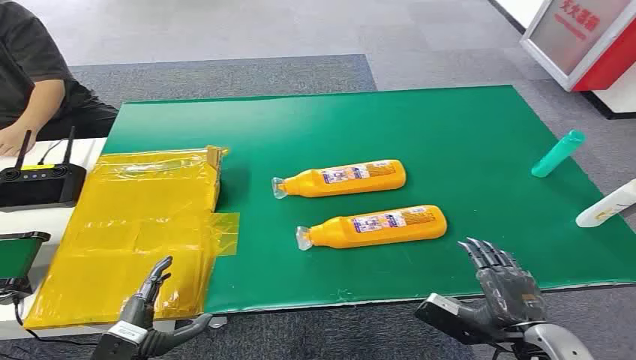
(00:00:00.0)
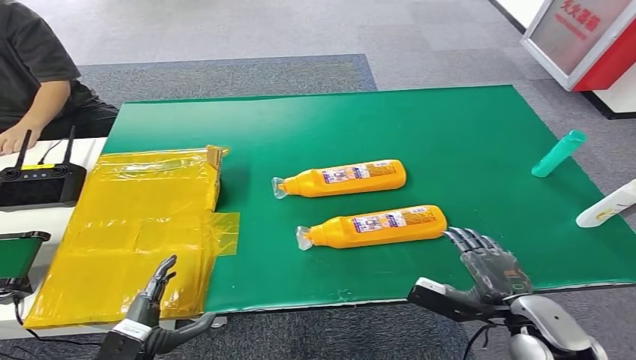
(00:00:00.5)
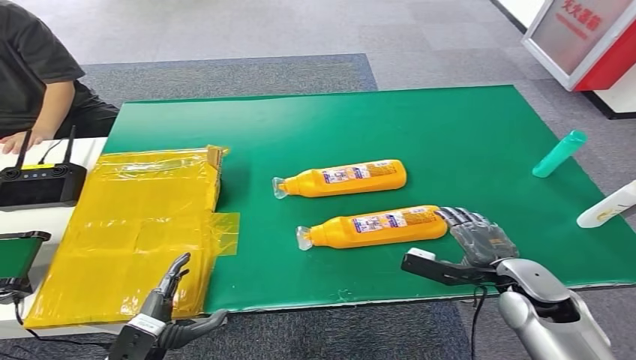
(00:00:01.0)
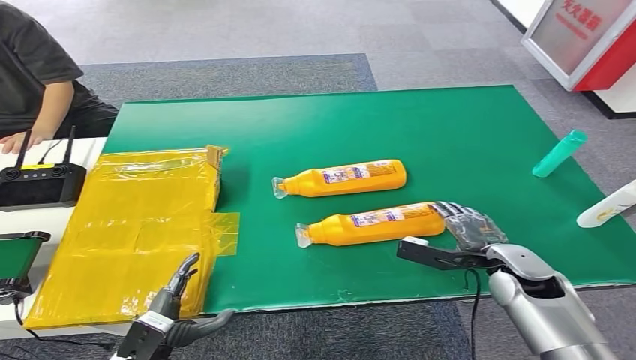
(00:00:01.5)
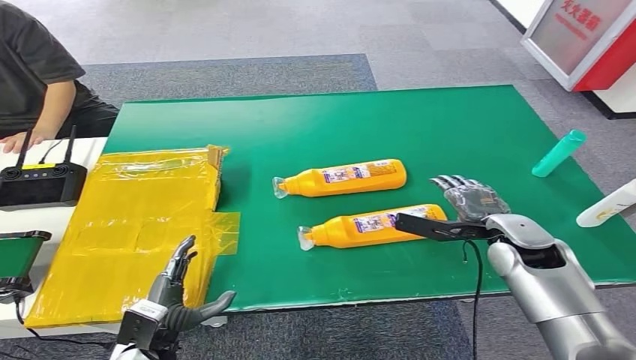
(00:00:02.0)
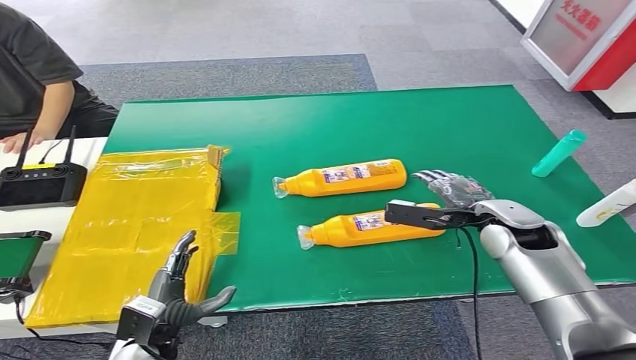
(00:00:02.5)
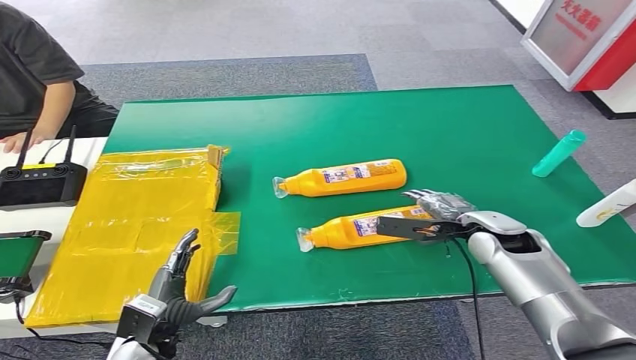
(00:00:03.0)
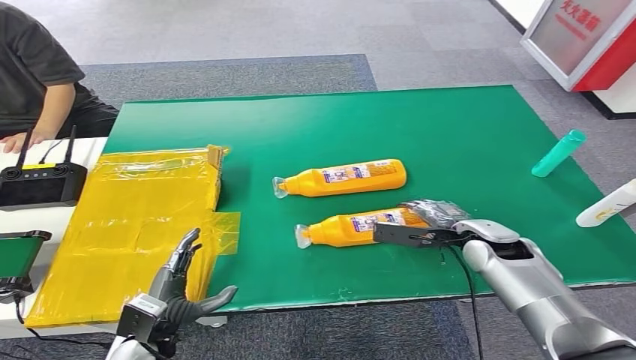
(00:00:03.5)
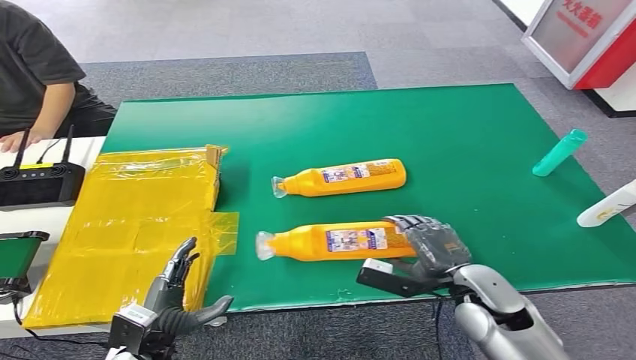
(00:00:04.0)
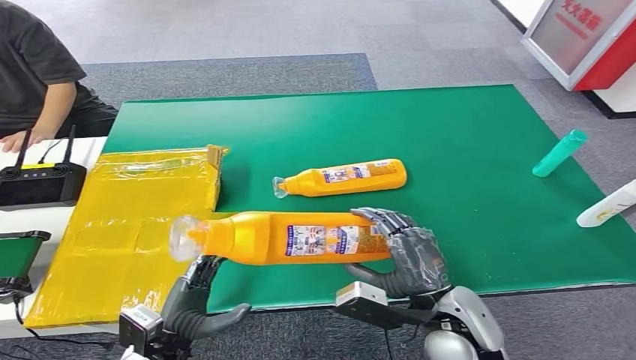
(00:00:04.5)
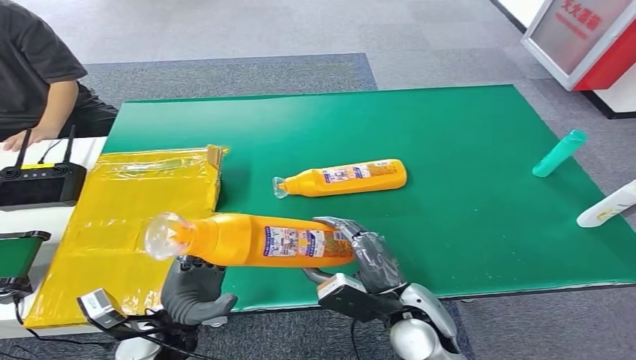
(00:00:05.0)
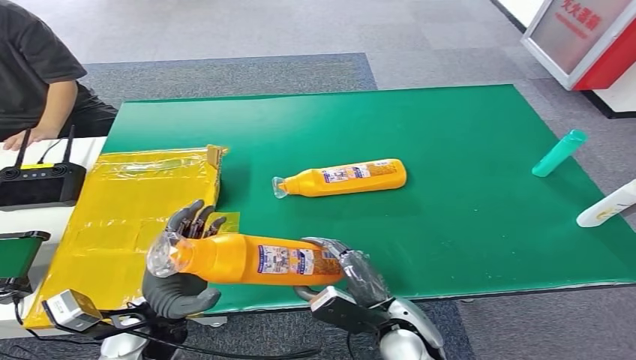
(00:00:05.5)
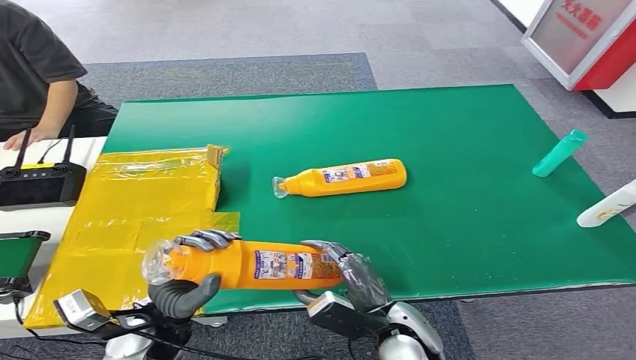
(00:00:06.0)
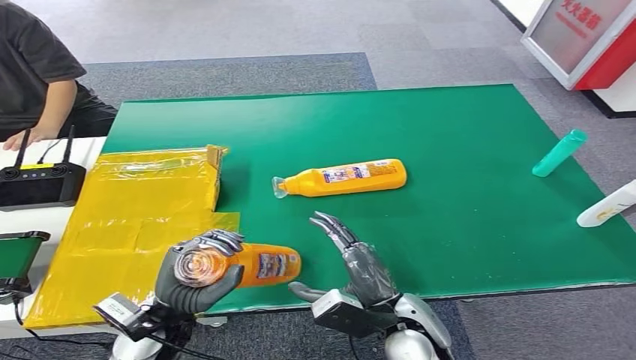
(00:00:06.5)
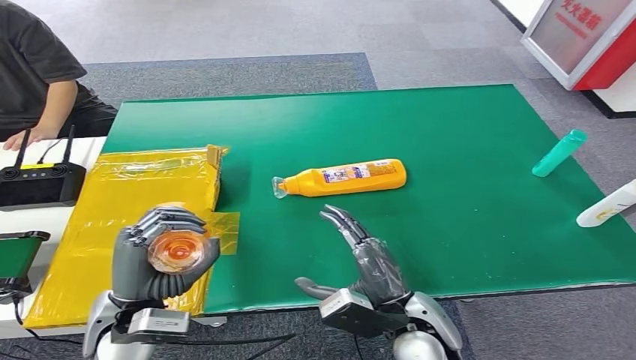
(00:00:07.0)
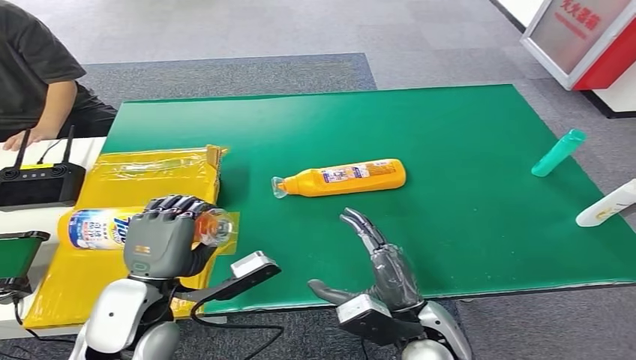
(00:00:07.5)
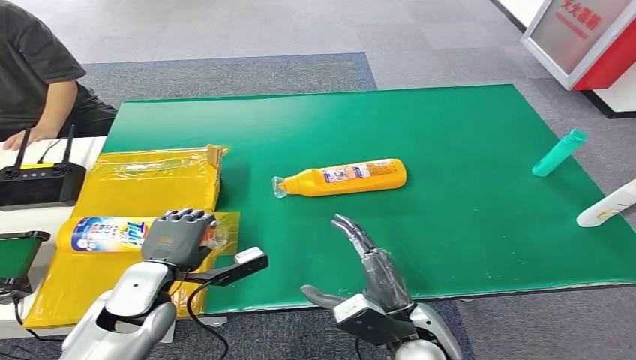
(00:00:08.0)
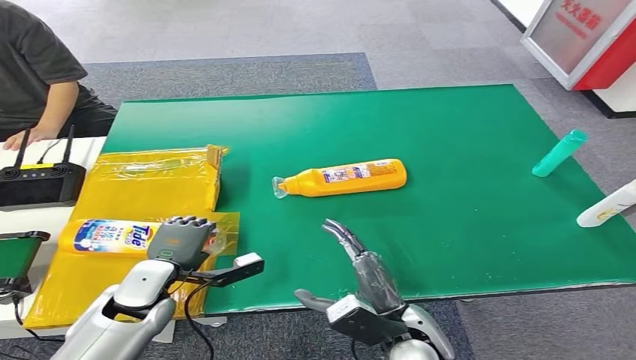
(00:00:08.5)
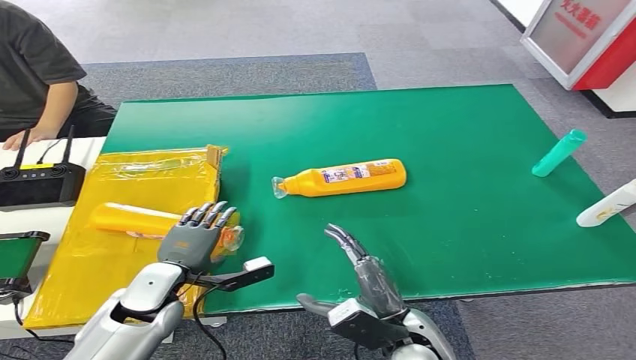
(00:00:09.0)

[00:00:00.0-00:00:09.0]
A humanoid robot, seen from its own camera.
Step, 00:00:00.0 to 00:00:04.0: Pick up the bottle from the table.
Step, 00:00:04.5 to 00:00:09.0: Turn the bottle to the front side.
00:00:02.0 to 00:00:04.5: The right hand goes roughly 20 cm backward and to the left.
00:00:04.5 to 00:00:07.0: The left hand shifts about 15 cm upward.
00:00:07.0 to 00:00:09.0: The left hand heads downward and forward, covering some 10 cm.
